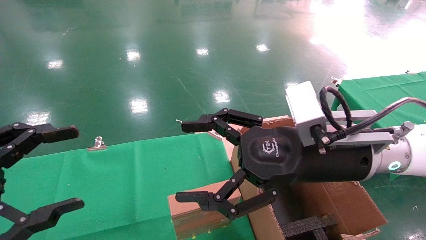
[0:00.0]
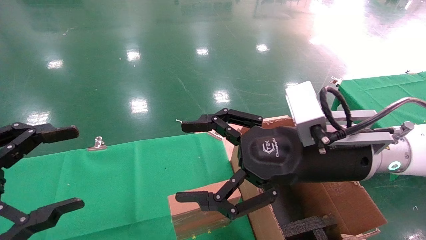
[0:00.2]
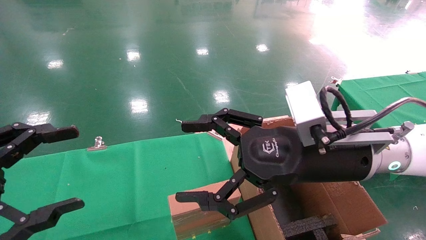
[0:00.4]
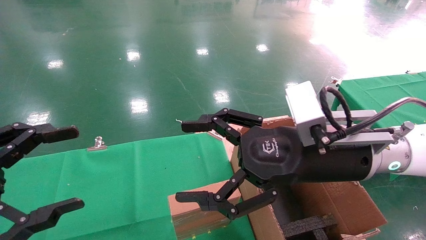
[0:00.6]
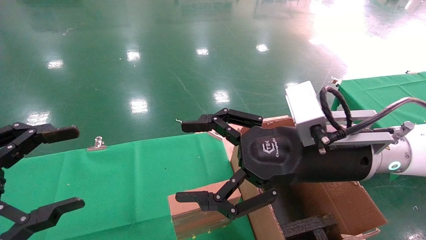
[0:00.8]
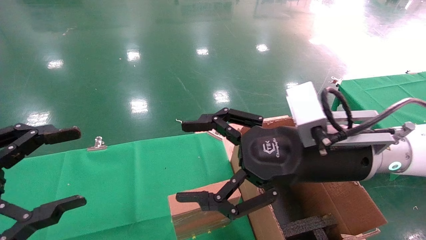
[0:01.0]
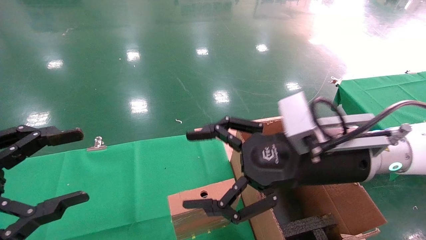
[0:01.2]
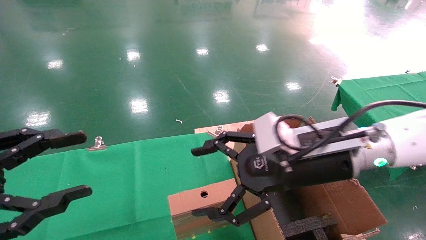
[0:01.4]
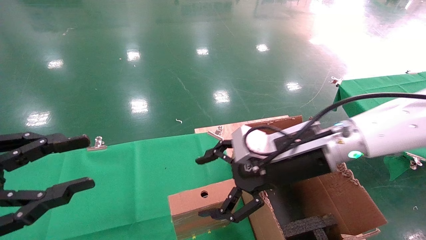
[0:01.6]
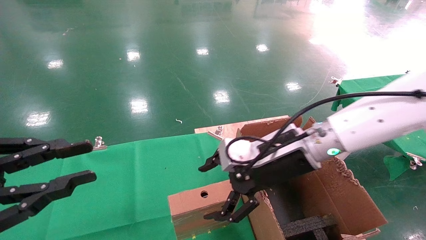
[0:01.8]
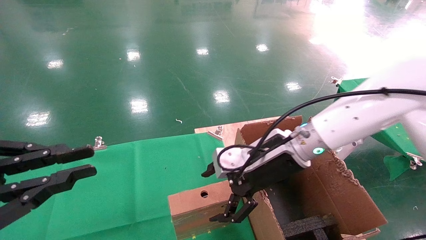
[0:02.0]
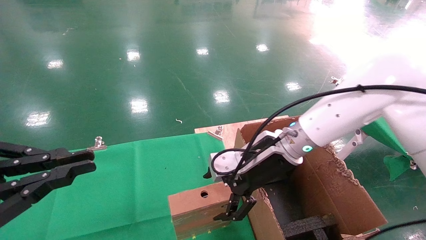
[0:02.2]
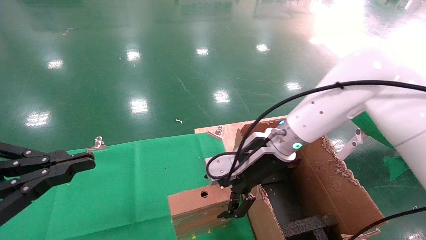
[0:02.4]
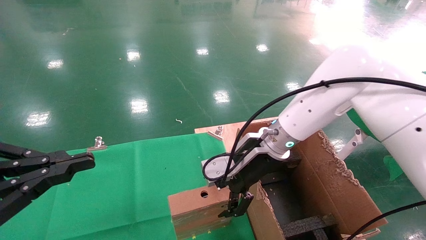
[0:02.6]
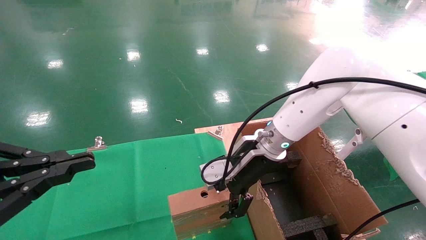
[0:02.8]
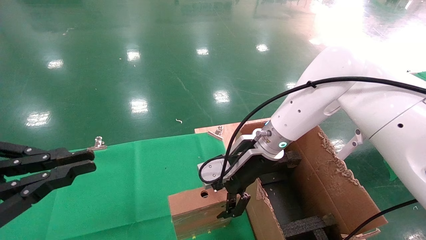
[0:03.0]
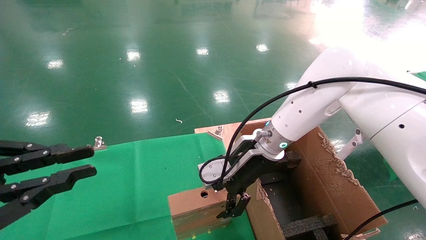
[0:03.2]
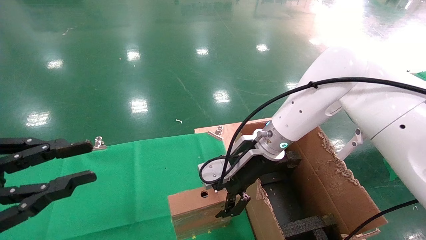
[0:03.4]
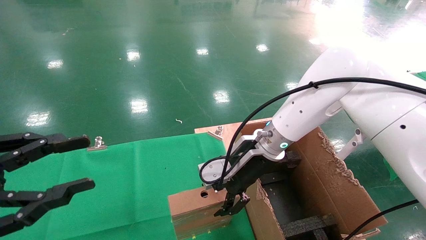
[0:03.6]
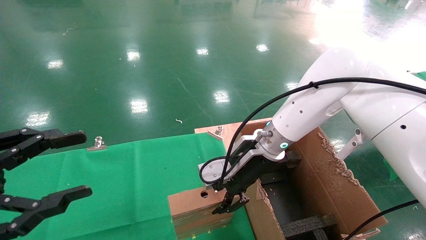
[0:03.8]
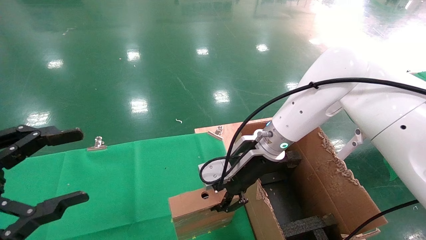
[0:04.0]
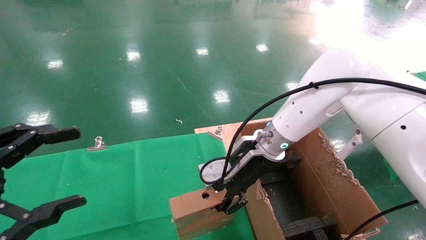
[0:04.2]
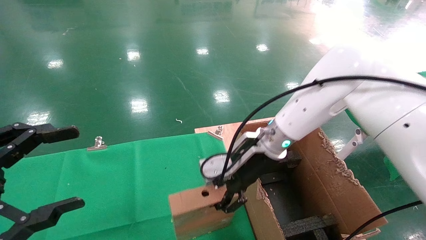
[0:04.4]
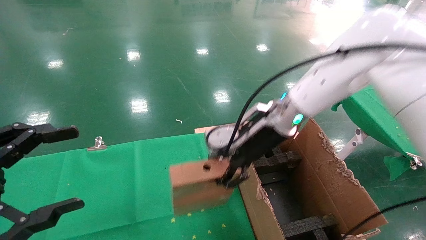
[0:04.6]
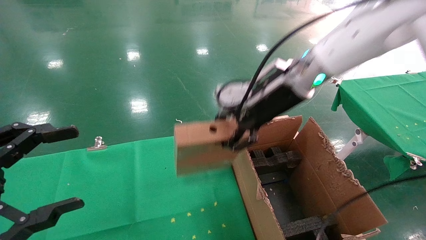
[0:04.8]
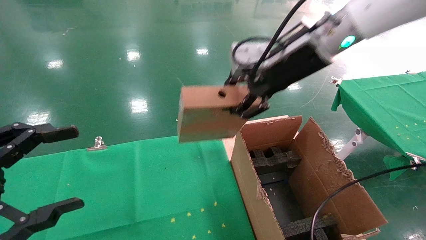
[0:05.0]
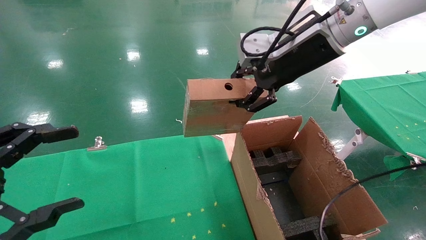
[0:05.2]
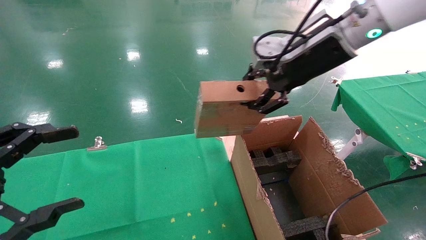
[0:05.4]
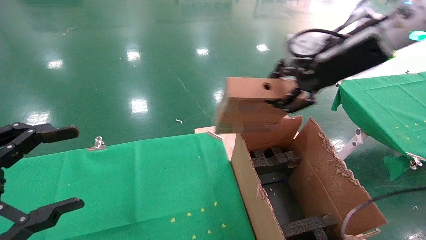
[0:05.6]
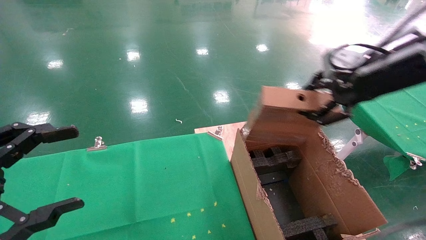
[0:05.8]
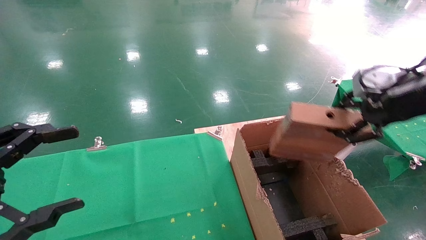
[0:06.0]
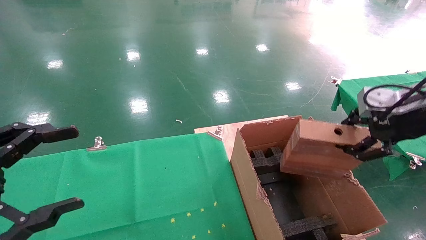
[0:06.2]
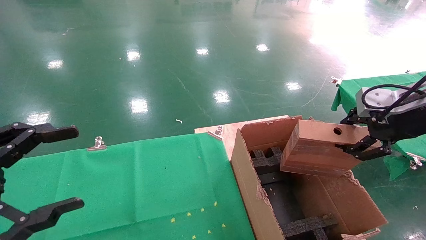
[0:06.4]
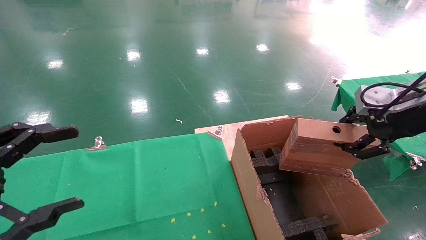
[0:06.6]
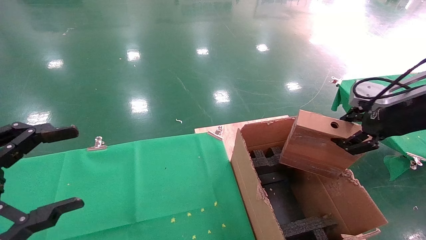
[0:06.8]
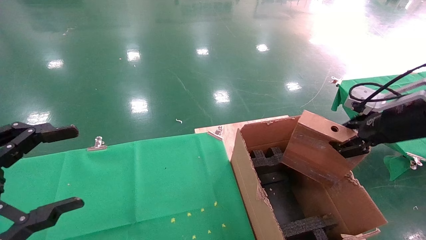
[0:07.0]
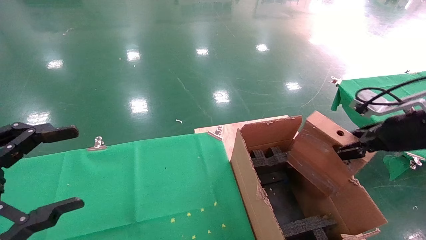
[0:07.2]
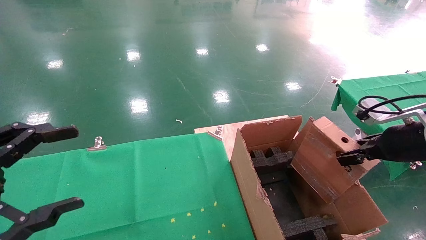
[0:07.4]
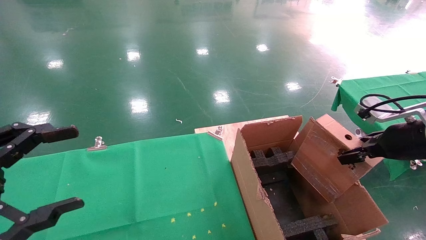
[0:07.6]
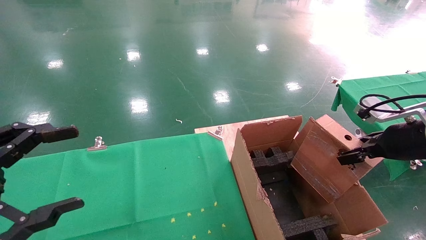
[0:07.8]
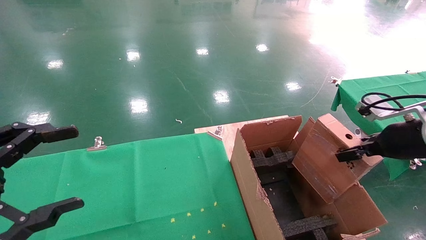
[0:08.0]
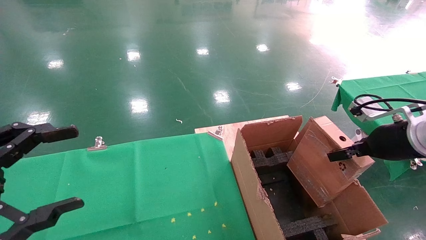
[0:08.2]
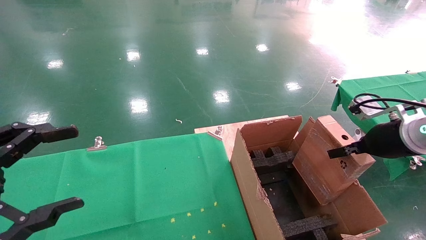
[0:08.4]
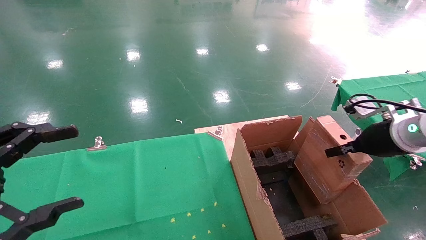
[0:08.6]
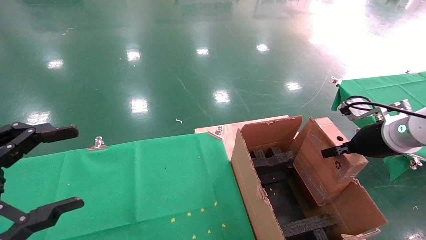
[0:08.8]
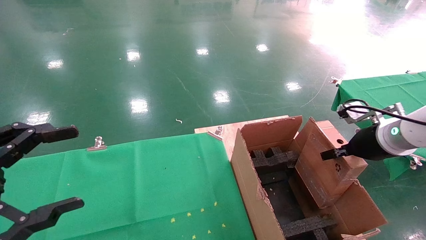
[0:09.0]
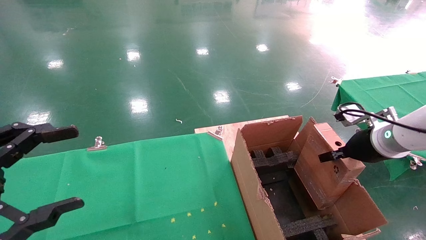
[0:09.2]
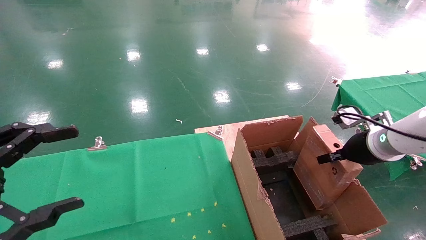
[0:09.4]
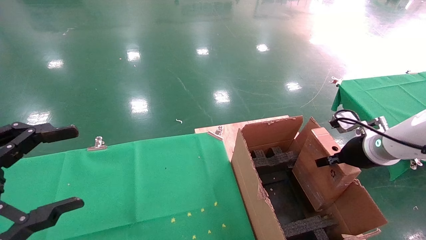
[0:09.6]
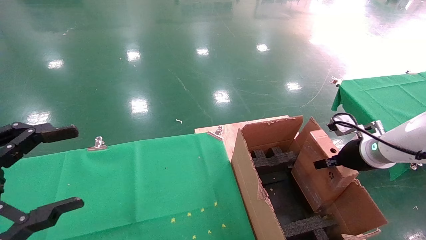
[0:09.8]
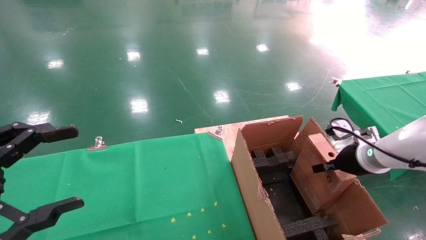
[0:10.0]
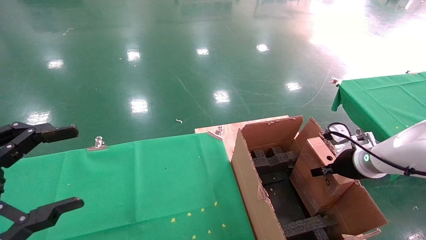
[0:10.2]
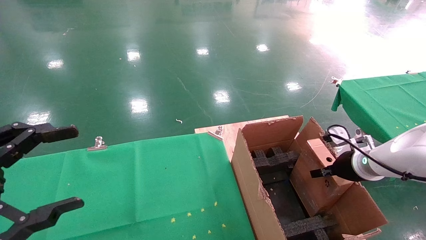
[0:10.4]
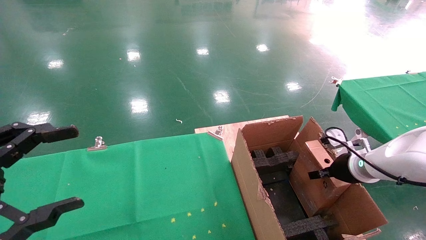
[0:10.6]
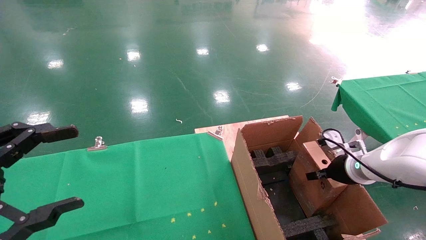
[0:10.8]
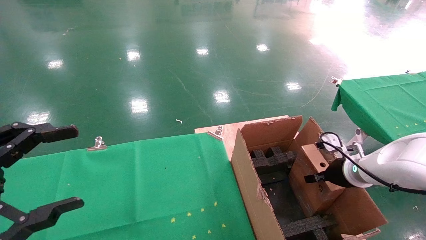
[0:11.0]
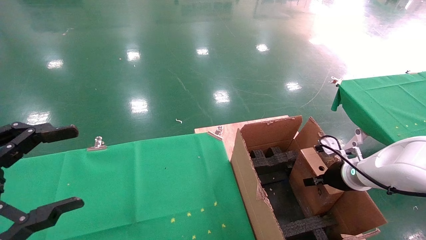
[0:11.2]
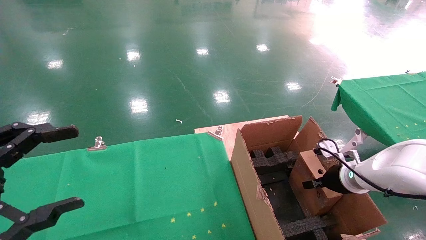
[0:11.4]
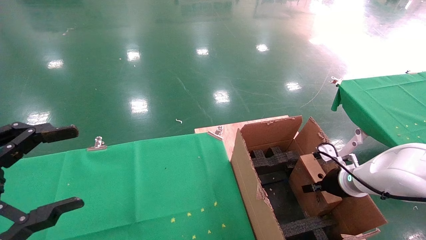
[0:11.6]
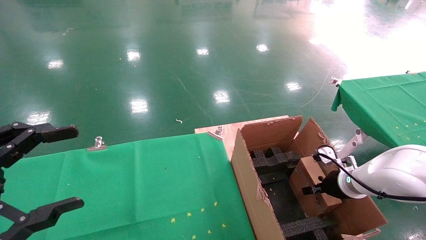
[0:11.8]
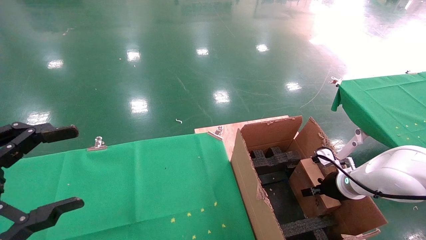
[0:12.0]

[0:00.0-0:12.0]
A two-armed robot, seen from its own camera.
Task of the whole recording: using a robotic arm to pick up a cardboard box and palace it the carton.
Step, 0:01.4 to 0:03.8: Pick up the mouse and the power cord paper box.
0:00.0 to 0:01.6: The right gripper travels forward by about 5 cm; the left gripper closes up.
0:01.6 to 0:03.0: The left gripper closes up; the right gripper moves forward, approximately 10 cm.
0:03.0 to 0:04.4: The left gripper opens up. Meanwhile the right gripper closes.
0:04.4 to 0:06.0: The right gripper heads to the right, upward and backward, covering about 30 cm.
0:06.0 to 0:07.6: The right gripper shifts some 10 cm downward.
0:07.6 to 0:09.0: The right gripper shifts approximately 5 cm forward.
0:09.0 to 0:10.4: The right gripper heads downward, covering about 10 cm.
0:10.4 to 0:12.0: The right gripper moves downward, about 10 cm.

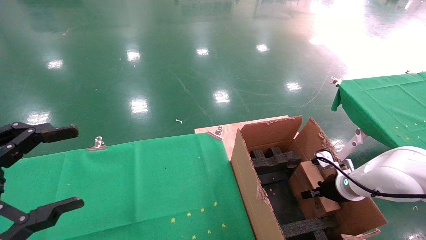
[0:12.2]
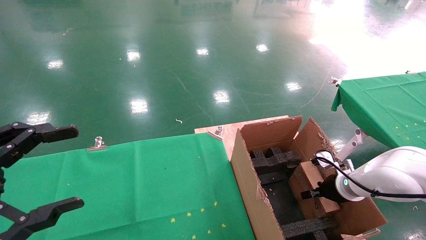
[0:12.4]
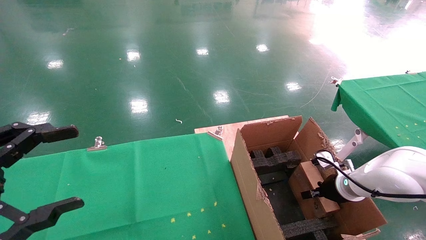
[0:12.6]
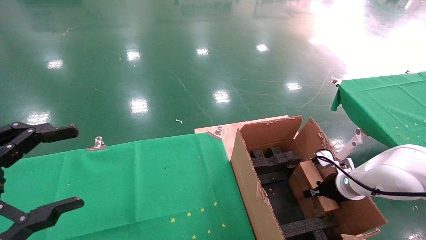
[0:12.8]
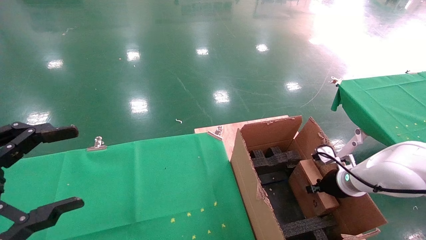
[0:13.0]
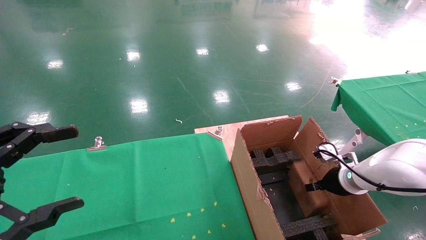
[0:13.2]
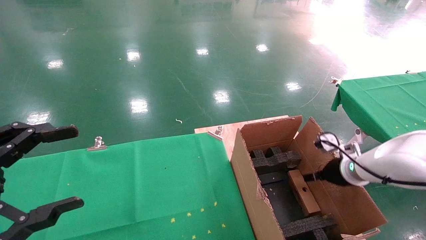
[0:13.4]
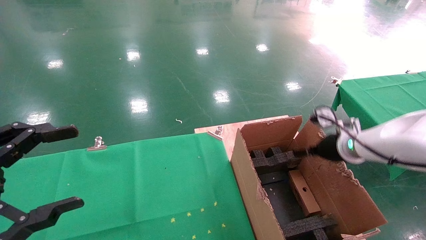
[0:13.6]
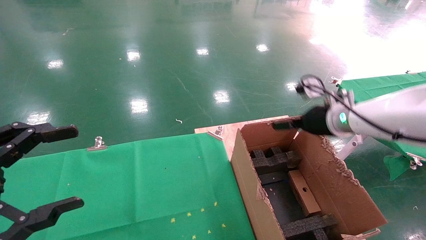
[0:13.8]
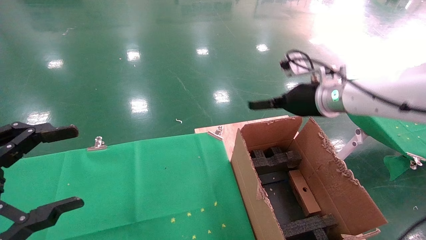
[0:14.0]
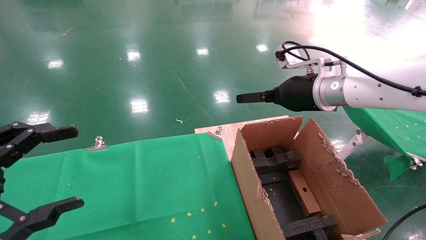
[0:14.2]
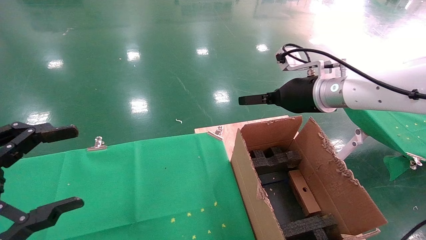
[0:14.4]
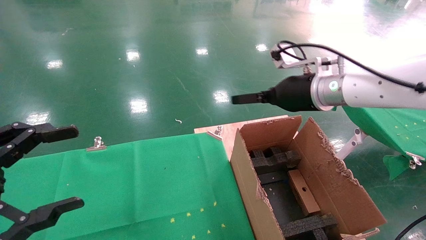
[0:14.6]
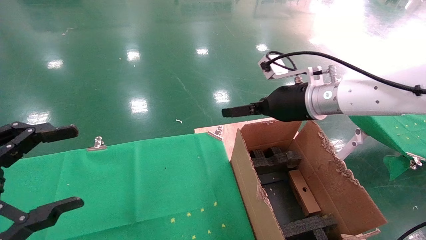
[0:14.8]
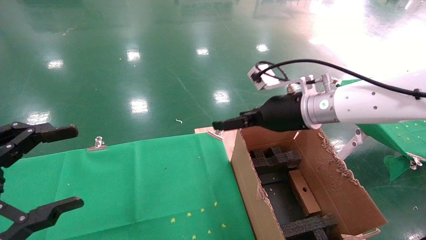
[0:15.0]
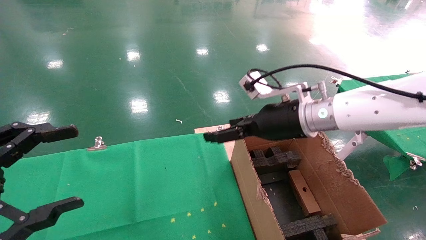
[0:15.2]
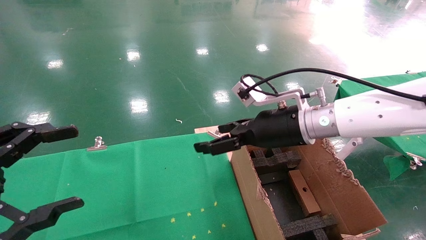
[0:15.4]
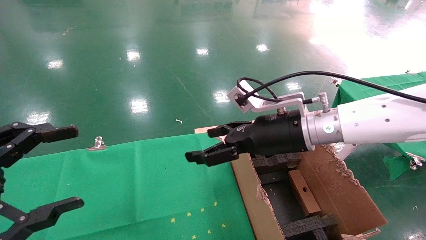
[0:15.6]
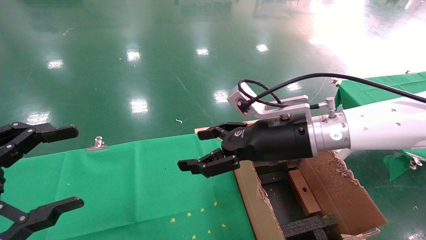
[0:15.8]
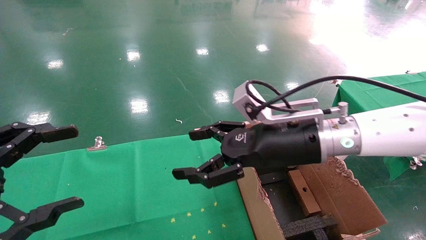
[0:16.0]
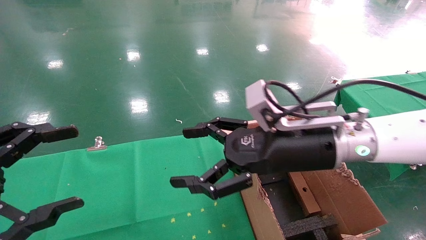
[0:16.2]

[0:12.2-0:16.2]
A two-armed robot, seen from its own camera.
Task of the whole recording: using a robotic arm to pick up a cardboard box and palace it the carton.
0:12.2 to 0:13.6: The right gripper shifts roughly 10 cm upward, and opens up.
0:13.6 to 0:14.8: The right gripper is displaced to the left and upward by approximately 15 cm.
0:14.8 to 0:16.2: The right gripper shifts roughly 10 cm backward and to the left.
